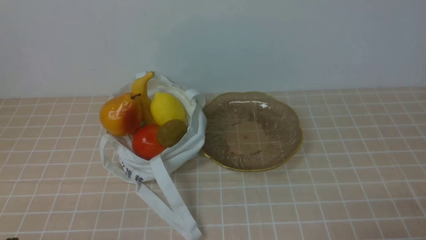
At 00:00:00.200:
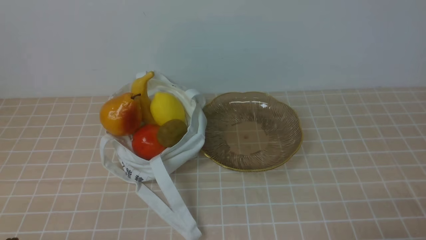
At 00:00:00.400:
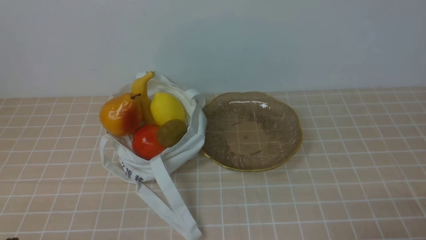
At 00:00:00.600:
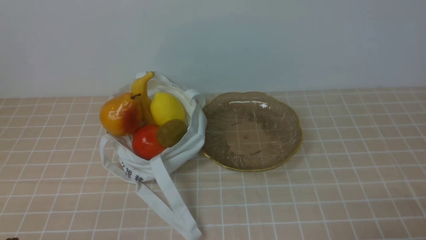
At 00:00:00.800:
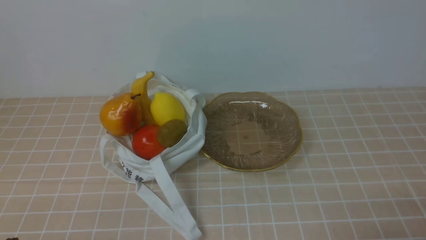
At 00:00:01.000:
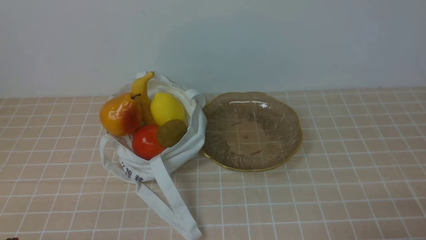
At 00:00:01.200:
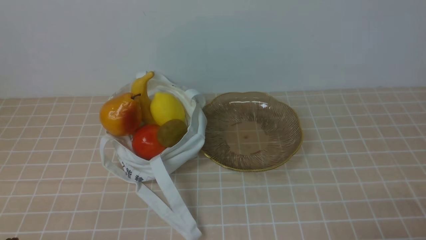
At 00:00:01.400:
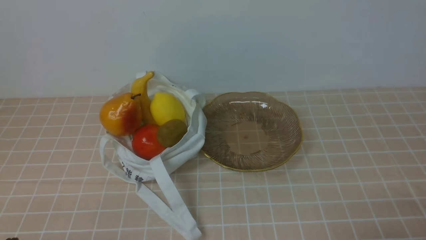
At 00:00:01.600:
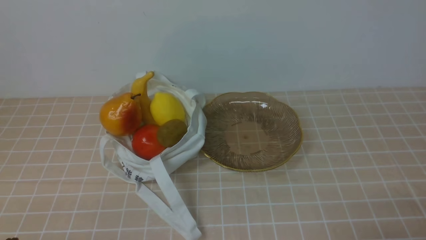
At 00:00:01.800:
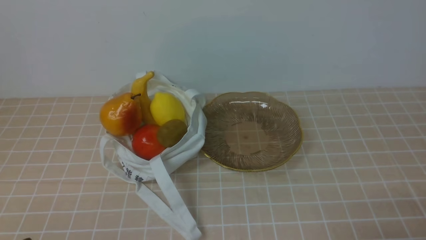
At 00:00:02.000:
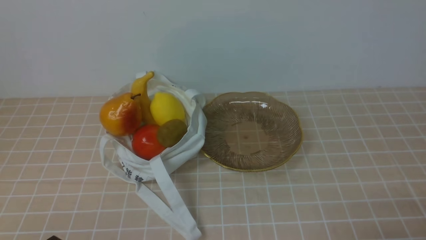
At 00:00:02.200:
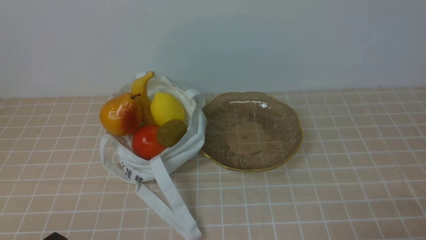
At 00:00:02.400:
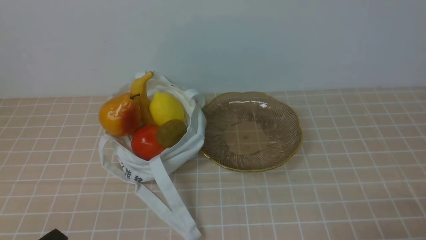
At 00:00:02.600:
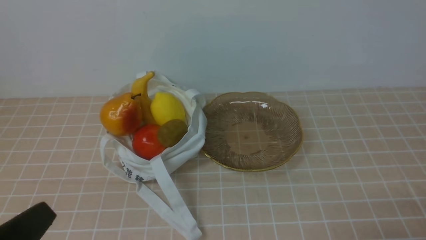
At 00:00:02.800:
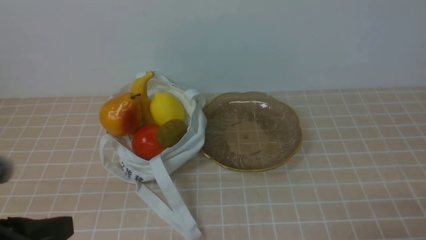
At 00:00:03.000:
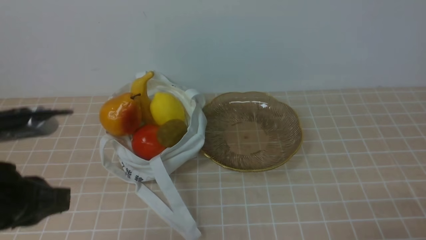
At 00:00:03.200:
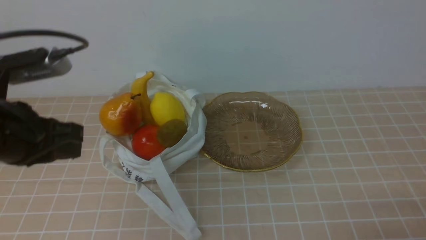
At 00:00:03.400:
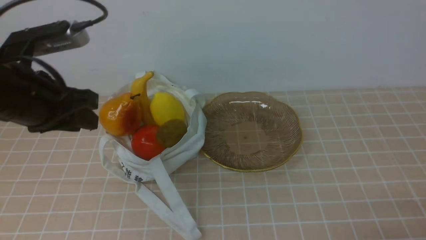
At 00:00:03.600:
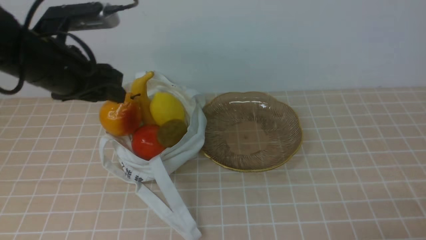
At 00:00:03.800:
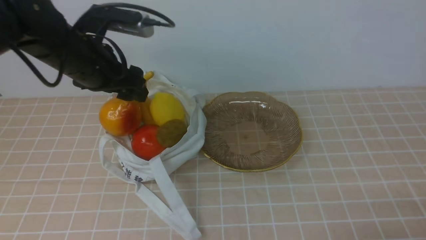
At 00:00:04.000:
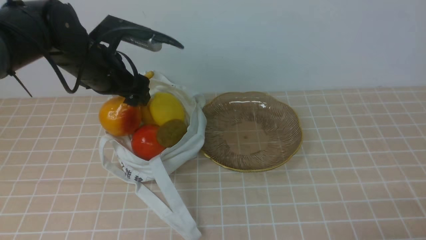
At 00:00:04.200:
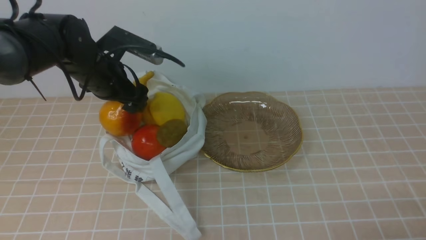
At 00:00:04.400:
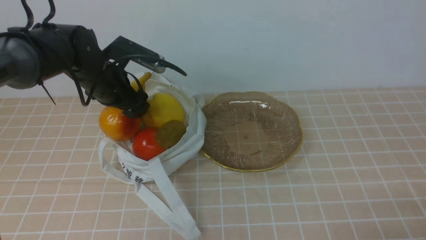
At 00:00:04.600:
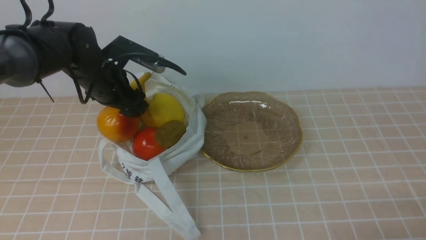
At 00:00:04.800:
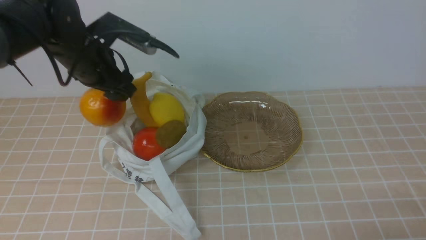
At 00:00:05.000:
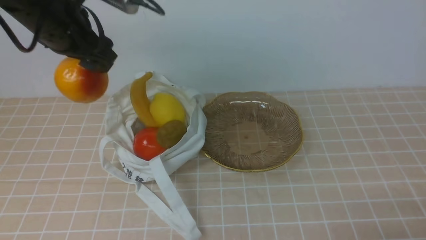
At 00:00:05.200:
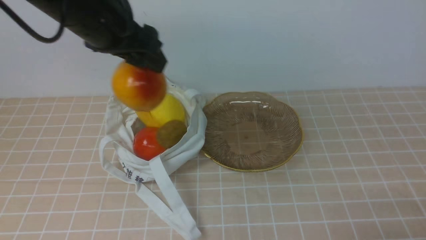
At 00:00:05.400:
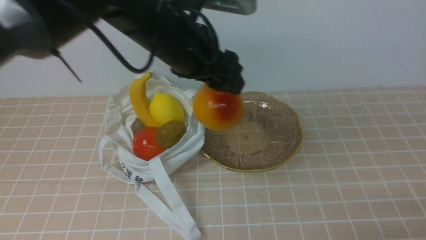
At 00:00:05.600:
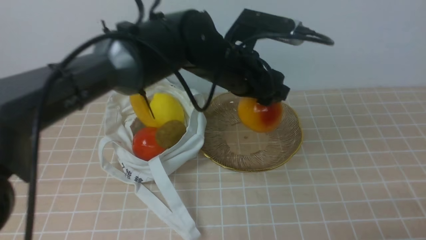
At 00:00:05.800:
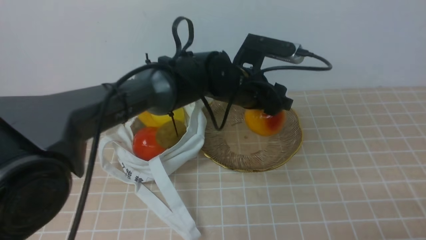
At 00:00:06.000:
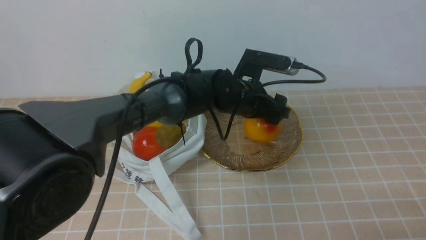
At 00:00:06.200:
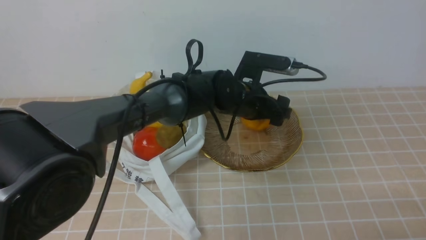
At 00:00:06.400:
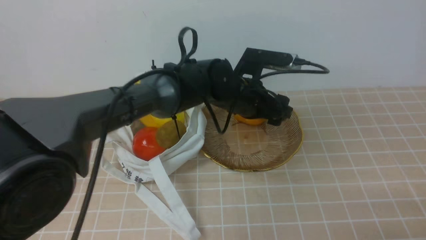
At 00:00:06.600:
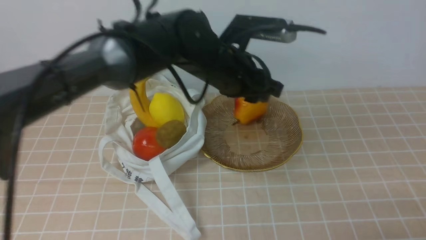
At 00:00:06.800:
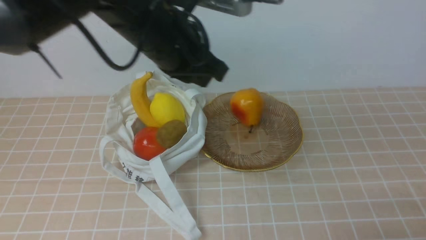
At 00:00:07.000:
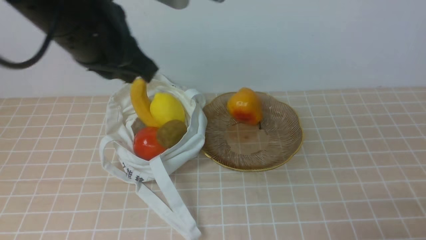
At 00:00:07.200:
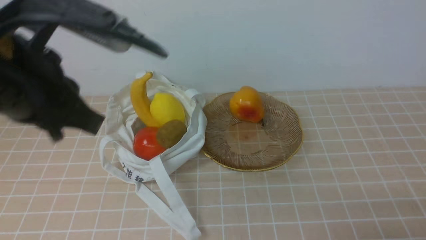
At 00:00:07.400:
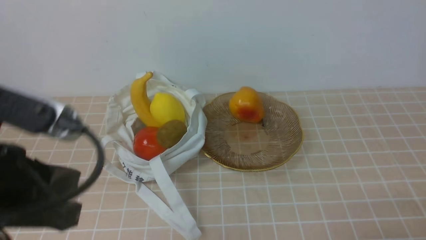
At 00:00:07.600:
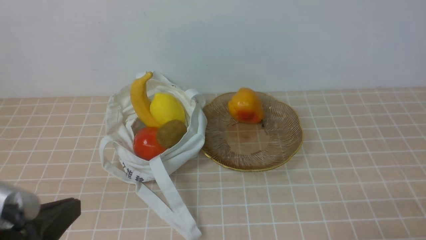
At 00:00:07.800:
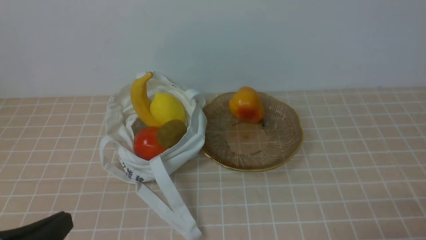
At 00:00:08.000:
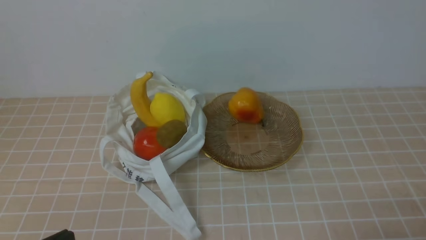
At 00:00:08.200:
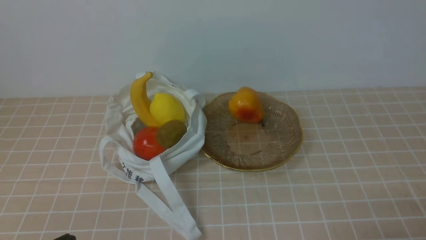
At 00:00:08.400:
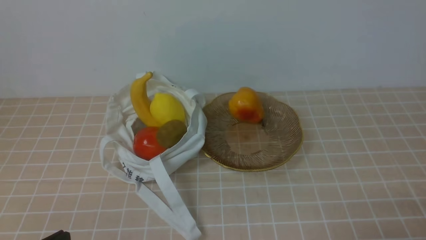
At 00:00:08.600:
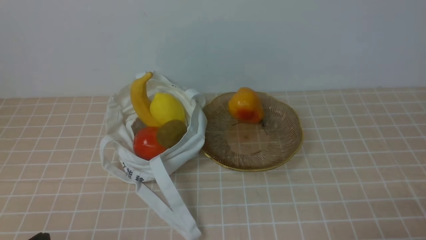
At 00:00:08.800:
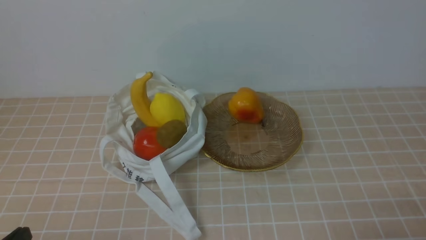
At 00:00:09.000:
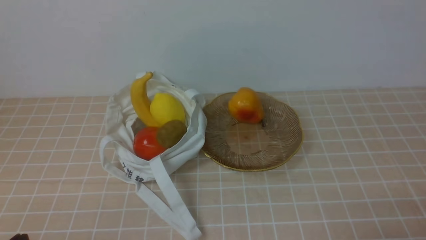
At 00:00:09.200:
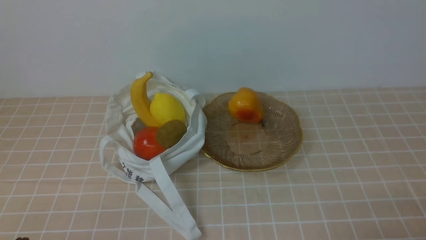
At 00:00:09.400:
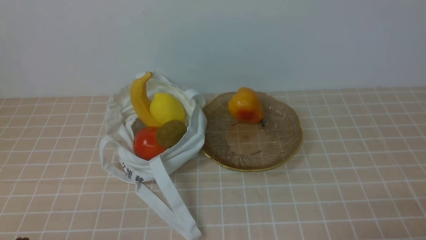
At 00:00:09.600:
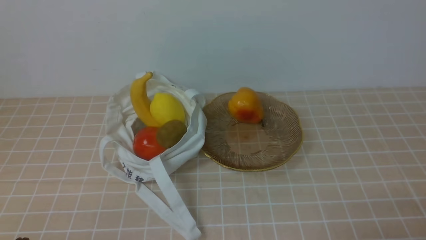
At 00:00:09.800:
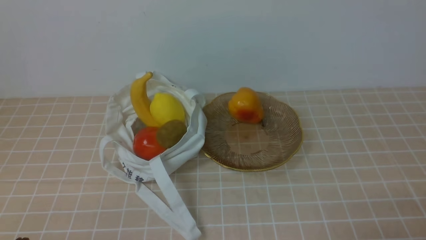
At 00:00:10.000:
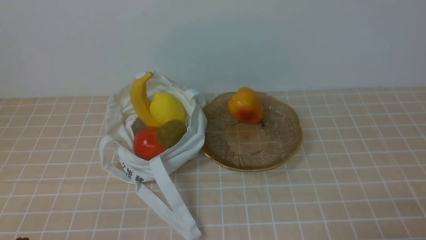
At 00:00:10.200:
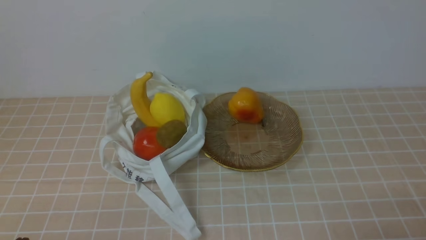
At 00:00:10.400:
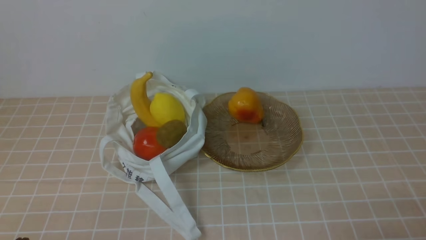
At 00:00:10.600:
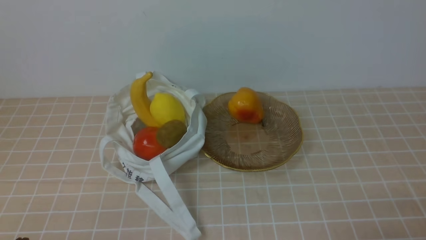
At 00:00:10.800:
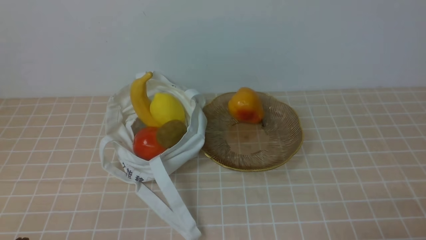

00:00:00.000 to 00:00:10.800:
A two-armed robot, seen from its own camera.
Step, 00:00:00.000 to 00:00:04.600: use the left arm to grab a pear from the bag.
Step, 00:00:04.800 to 00:00:06.200: use the left arm to put the pear into the empty plate on the right.
00:00:01.600 to 00:00:03.000: The left gripper shifts approximately 15 cm upward and forward.
00:00:03.000 to 00:00:04.600: The left gripper moves forward, some 25 cm, and opens up.
00:00:04.600 to 00:00:06.200: The left gripper travels to the right by some 25 cm.
00:00:06.200 to 00:00:07.800: The left gripper heads backward and to the left, covering some 40 cm, and closes up.
00:00:07.800 to 00:00:09.200: The left gripper is displaced downward by some 5 cm.
00:00:09.200 to 00:00:10.800: Both grippers stay about where they are.
